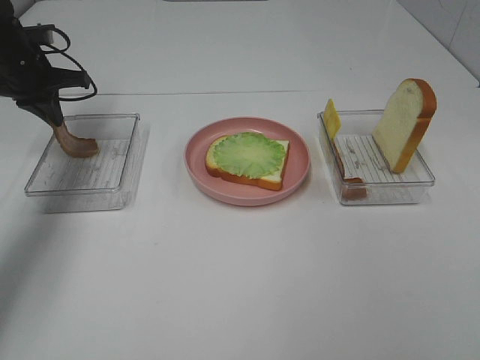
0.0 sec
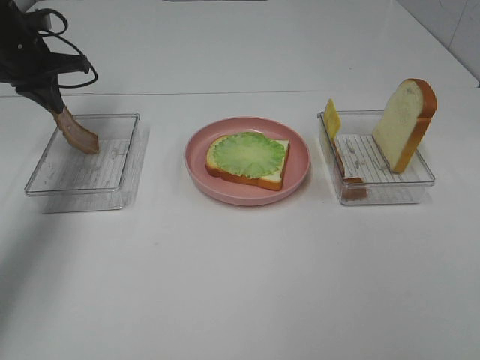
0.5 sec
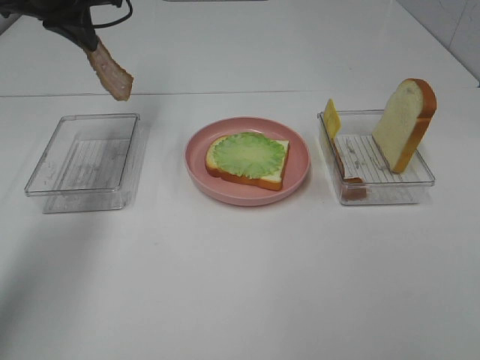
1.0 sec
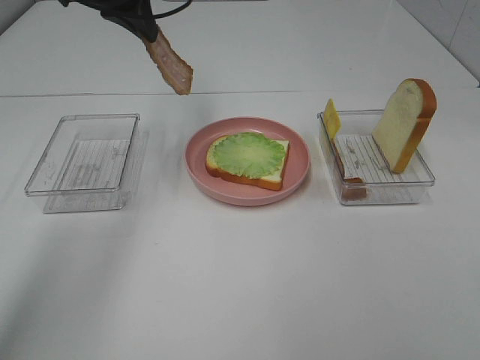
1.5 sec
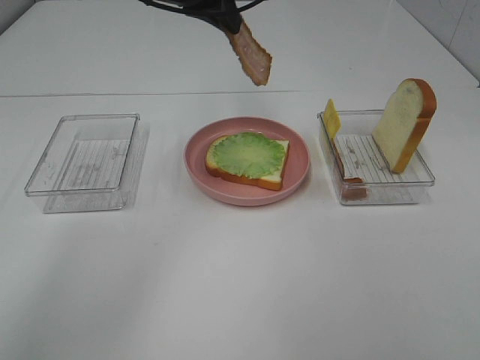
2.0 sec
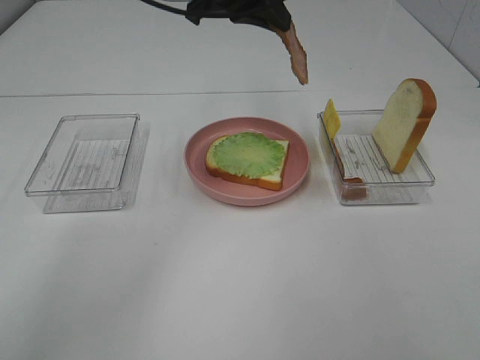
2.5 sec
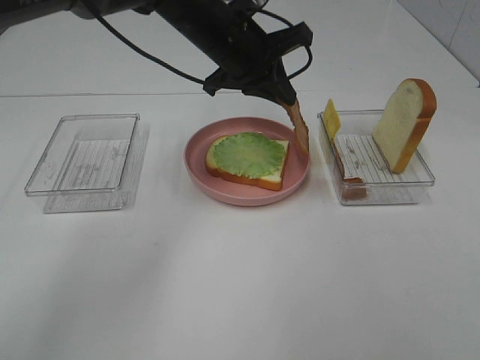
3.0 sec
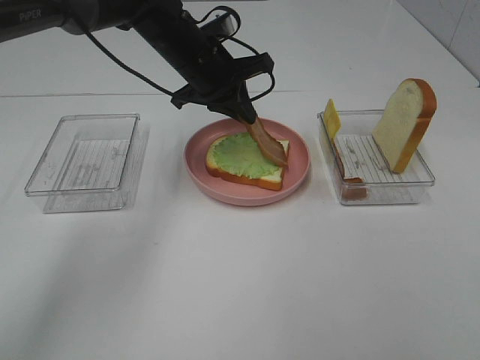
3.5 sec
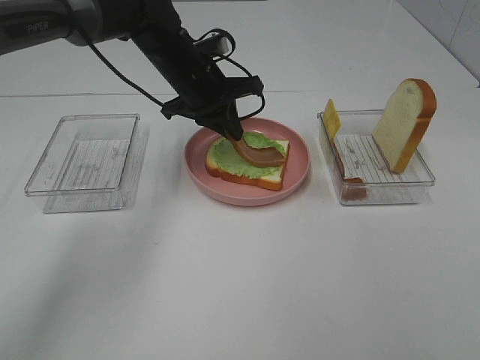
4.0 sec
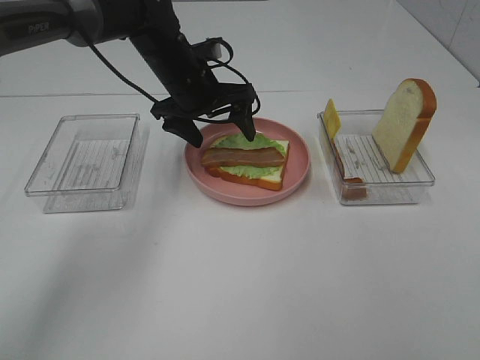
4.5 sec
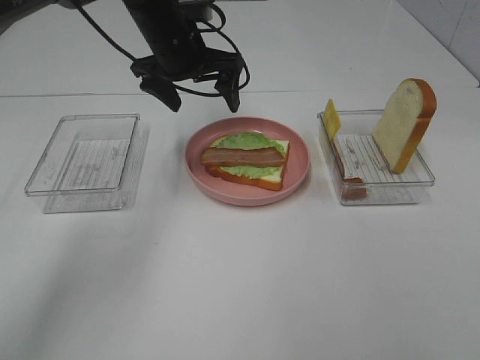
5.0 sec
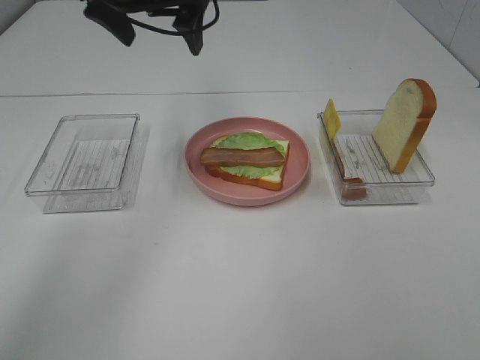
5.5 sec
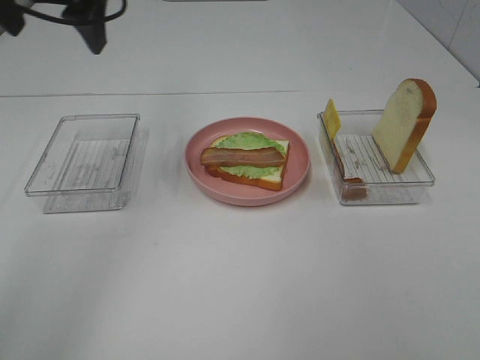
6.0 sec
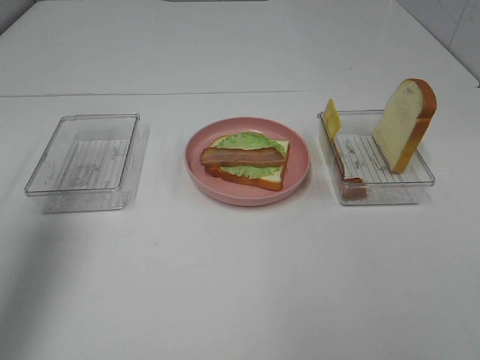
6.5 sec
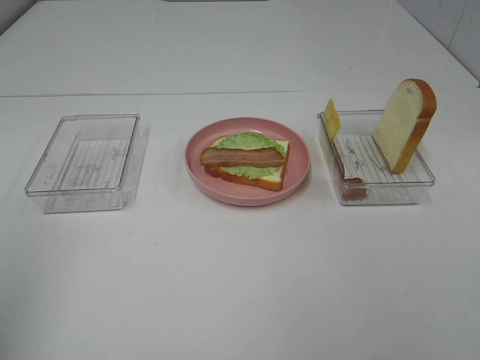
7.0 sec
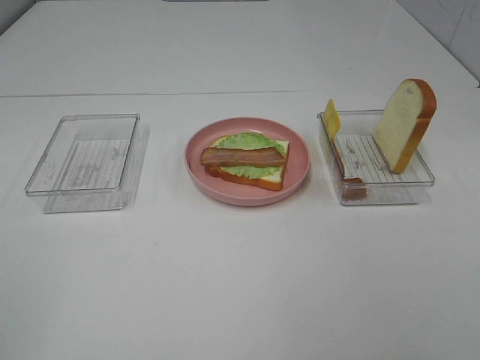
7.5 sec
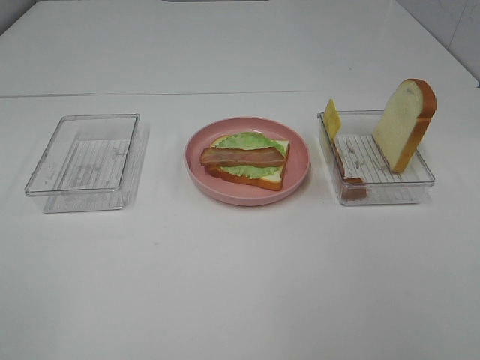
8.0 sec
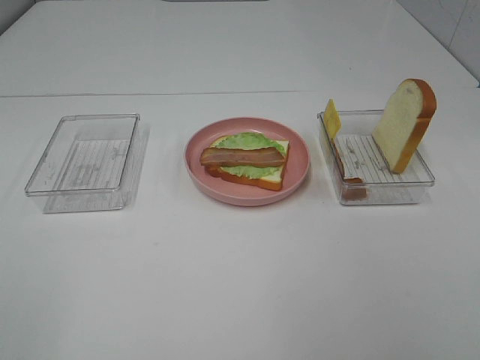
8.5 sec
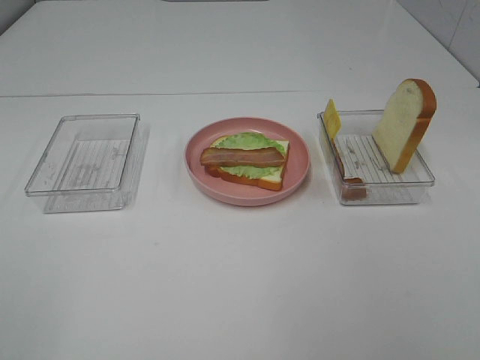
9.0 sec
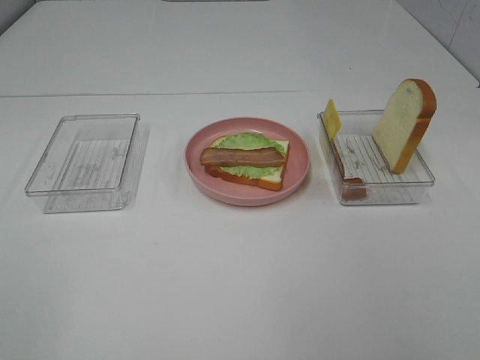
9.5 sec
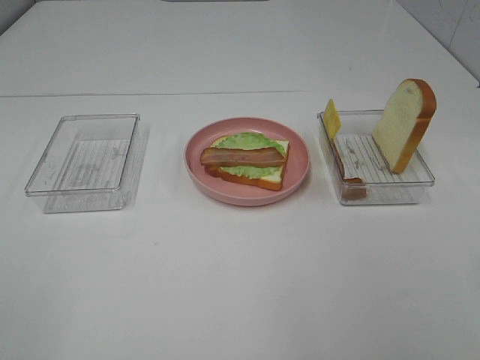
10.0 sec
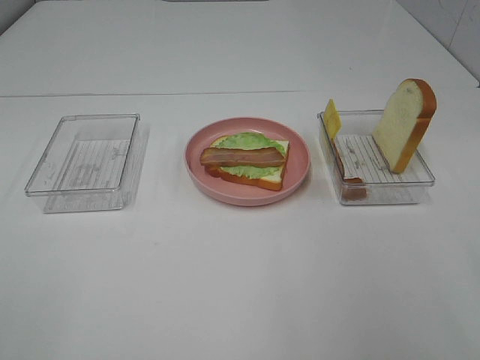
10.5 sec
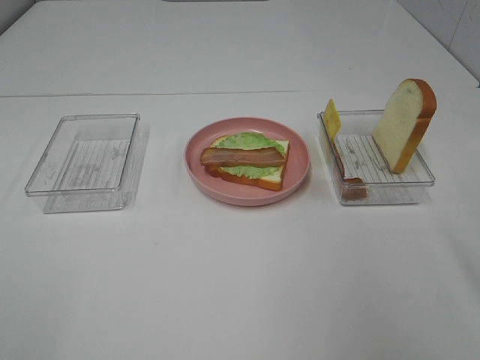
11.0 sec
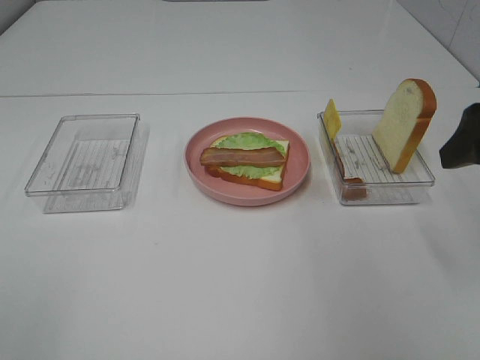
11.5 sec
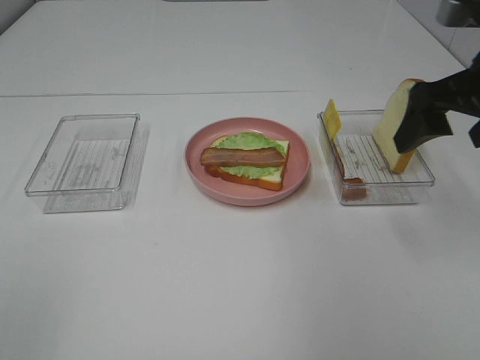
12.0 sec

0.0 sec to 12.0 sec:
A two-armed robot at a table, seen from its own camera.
Task of the whole recording: Make sandwiches.
Step, 0.5 sec to 4.5 sec: Left hand:place bacon on lettuce slice.
0.0 sec to 2.0 sec: The left gripper travels to the right and upward by some 30 cm.
2.0 sec to 4.0 sec: The left gripper moves downward, some 15 cm.
4.0 sec to 6.0 sec: The left gripper travels upward, to the left and backward by roughly 25 cm, and opens its fingers.
6.0 sec to 8.0 sec: The left gripper is displaced backward by some 40 cm.
10.0 sec to 12.0 sec: The right gripper goes approximately 30 cm forward.

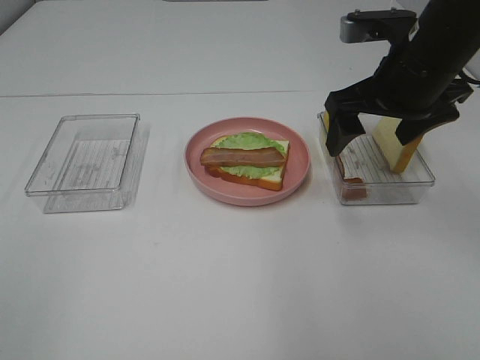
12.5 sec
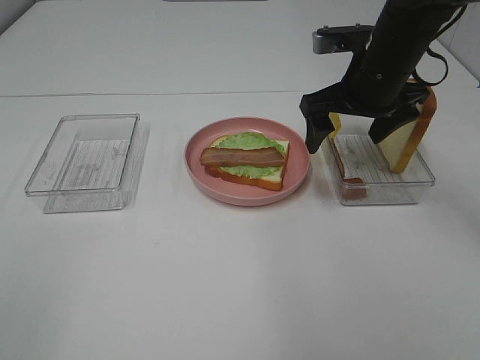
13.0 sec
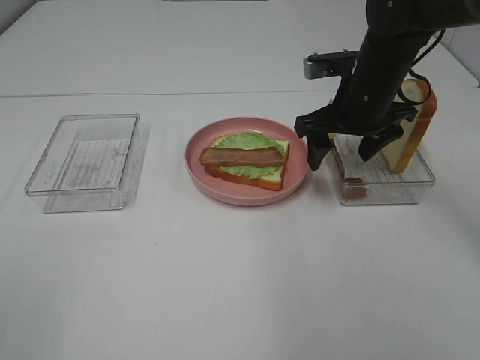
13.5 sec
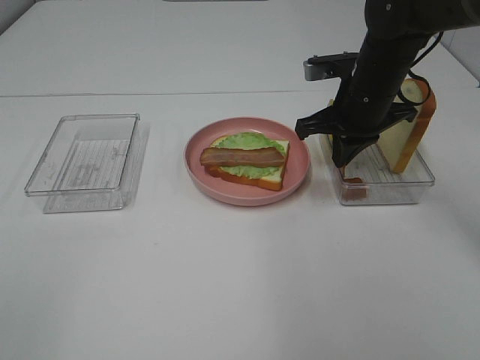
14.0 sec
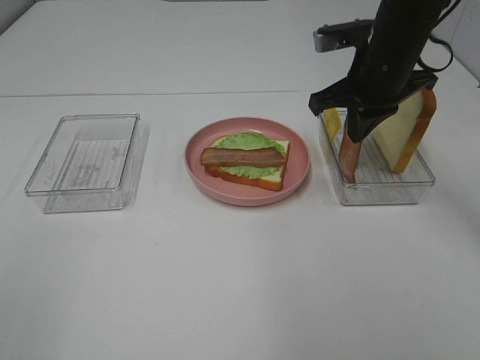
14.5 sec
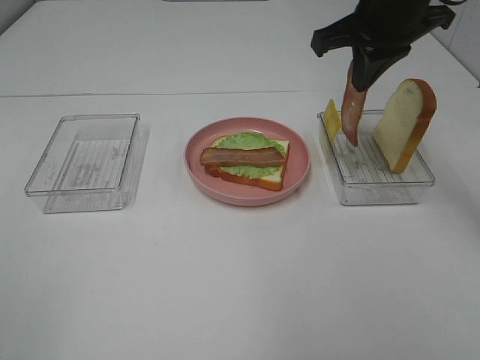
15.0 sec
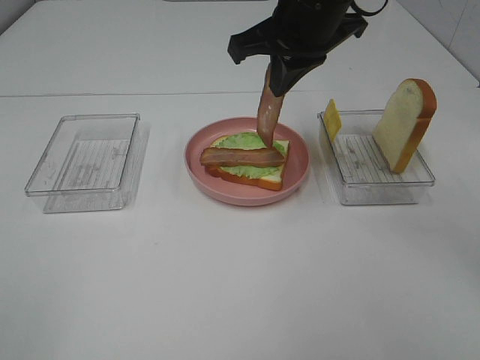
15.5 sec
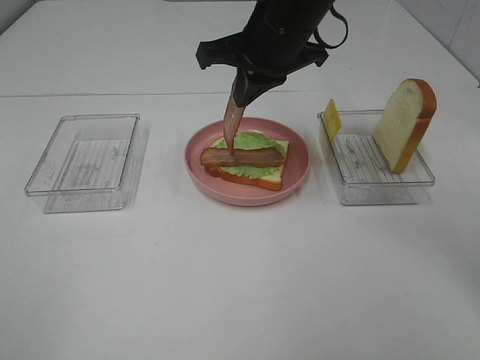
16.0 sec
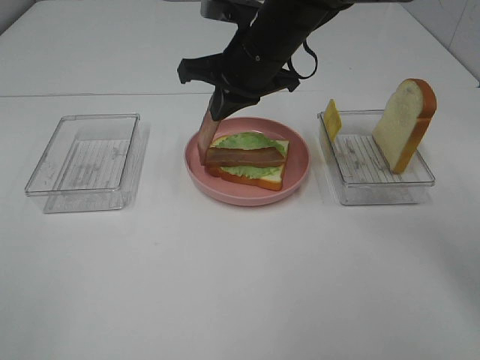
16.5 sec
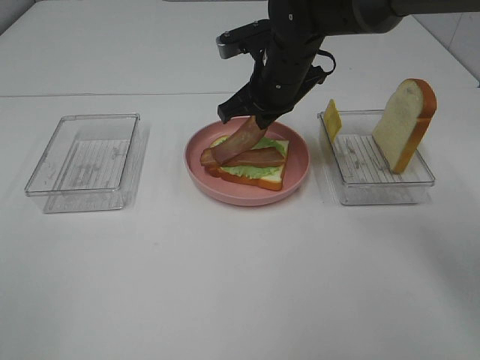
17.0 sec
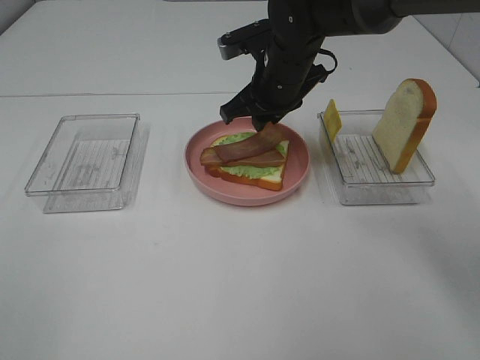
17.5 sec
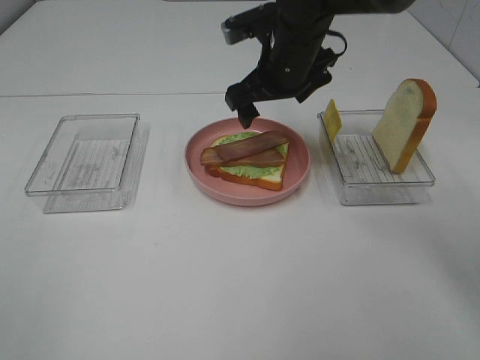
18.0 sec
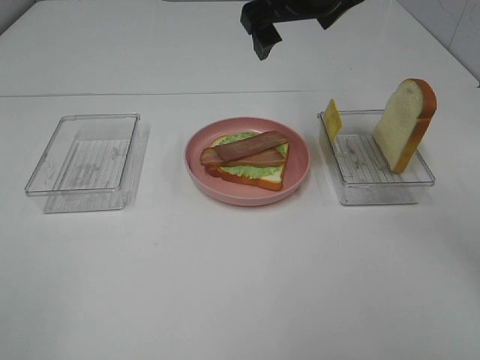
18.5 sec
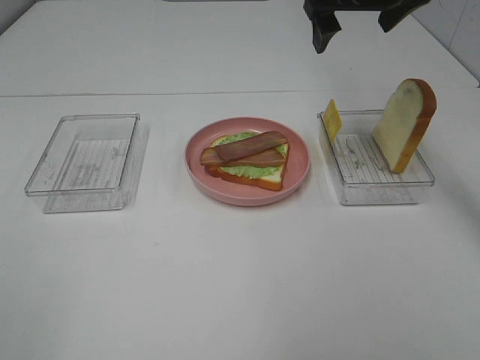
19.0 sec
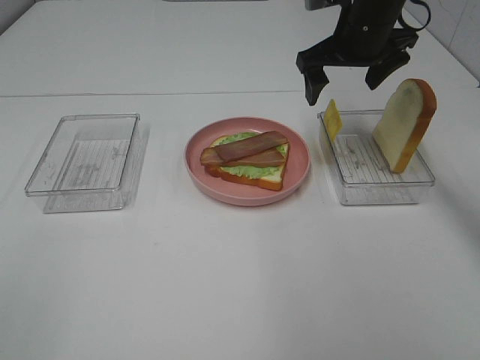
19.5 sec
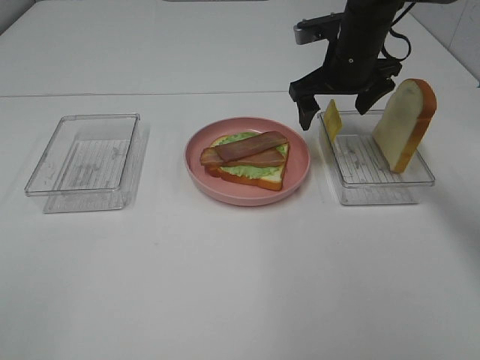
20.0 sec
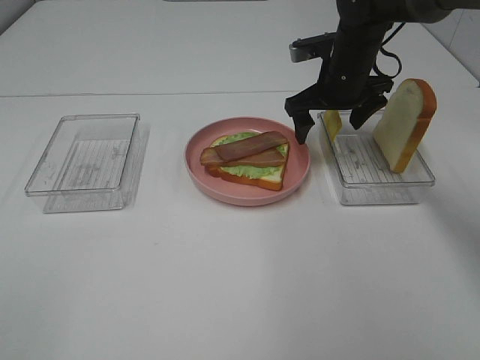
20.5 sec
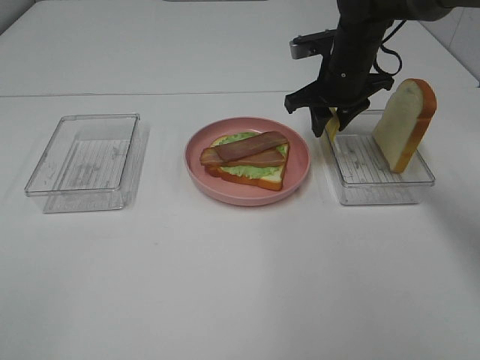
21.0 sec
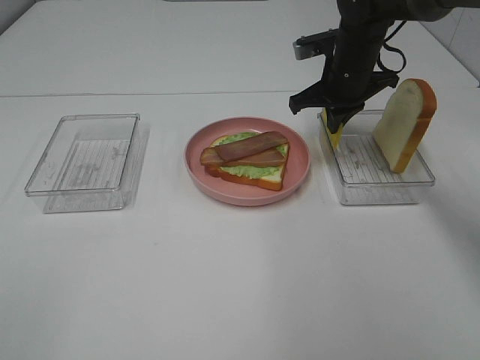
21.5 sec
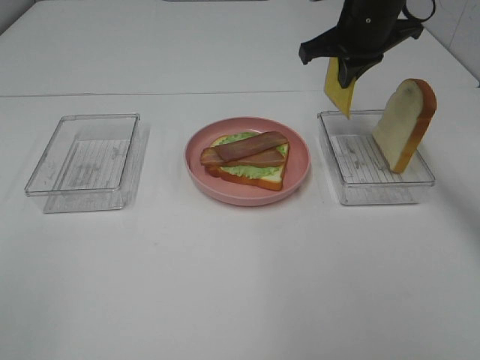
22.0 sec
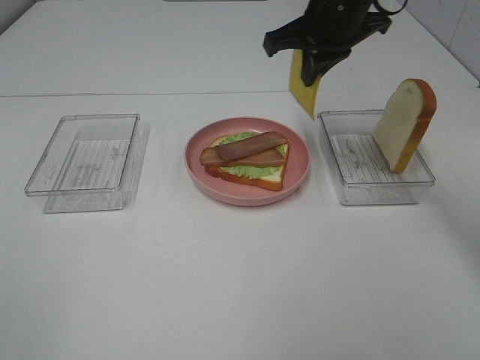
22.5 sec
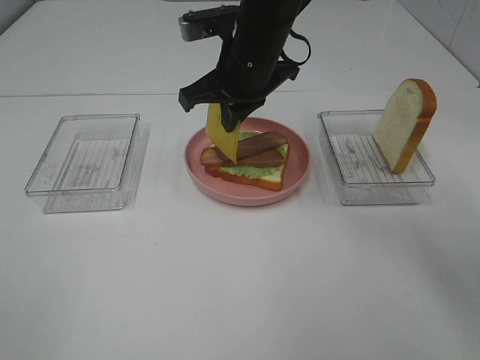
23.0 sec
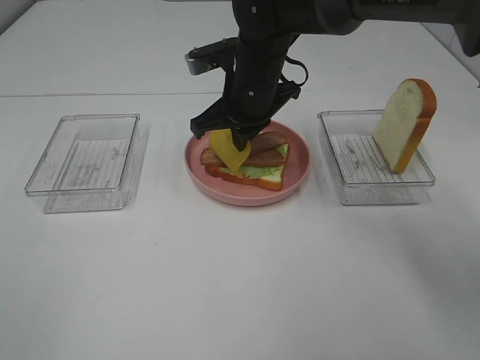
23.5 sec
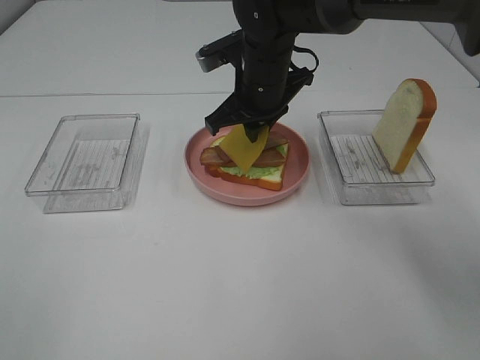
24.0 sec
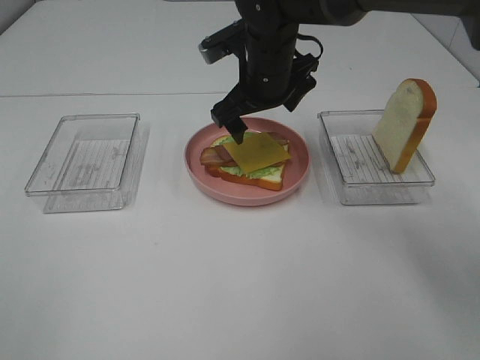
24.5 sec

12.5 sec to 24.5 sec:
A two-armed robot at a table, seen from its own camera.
Task of the whole recording: Make sandwiches.
Step, 14.5 sec to 17.5 sec: Right hand:place bacon on bacon.
Step, 18.0 sec to 21.5 sec: Right hand:grab the cheese slice.
Step, 22.0 sec to 24.0 sec: Right hand:place the cheese slice on top of the bacon.
12.5 sec to 14.5 sec: The right gripper shifts approximately 5 cm forward, and closes up.
14.5 sec to 16.5 sec: The right gripper moves to the left, approximately 15 cm.
16.5 sec to 18.5 sec: The right gripper travels upward by approximately 10 cm, and opens its fingers.
18.5 sec to 20.5 sec: The right gripper moves downward, to the right and forward, roughly 15 cm.
20.5 sec to 22.5 sec: The right gripper is displaced upward by roughly 10 cm, and closes its fingers.
22.5 sec to 24.5 sec: The right gripper heads downward and to the left, covering roughly 10 cm, and opens.

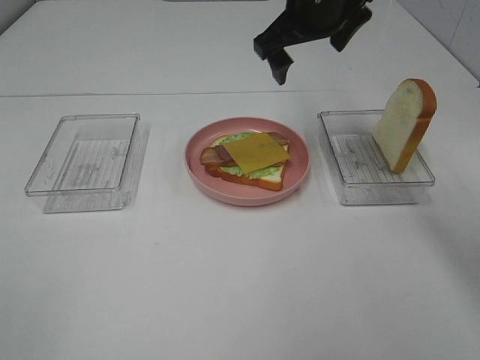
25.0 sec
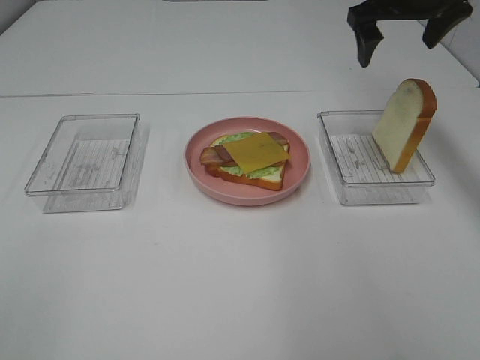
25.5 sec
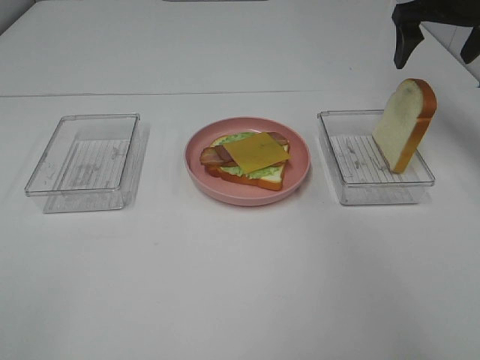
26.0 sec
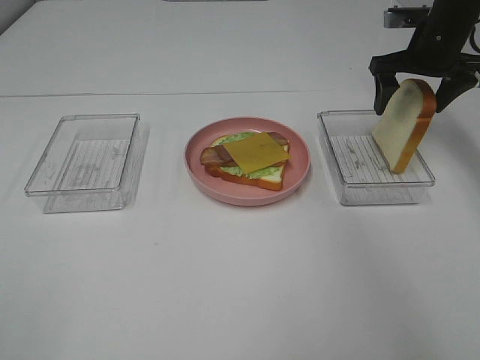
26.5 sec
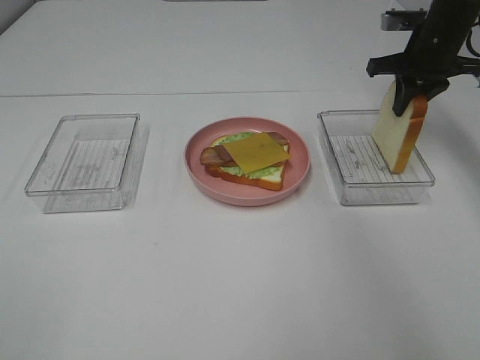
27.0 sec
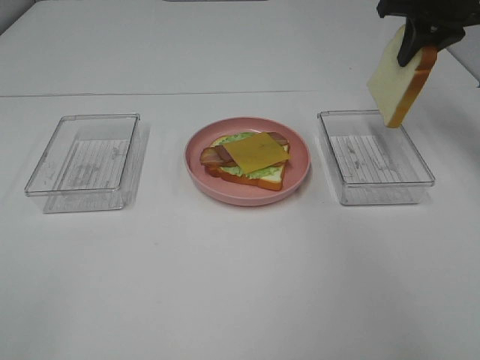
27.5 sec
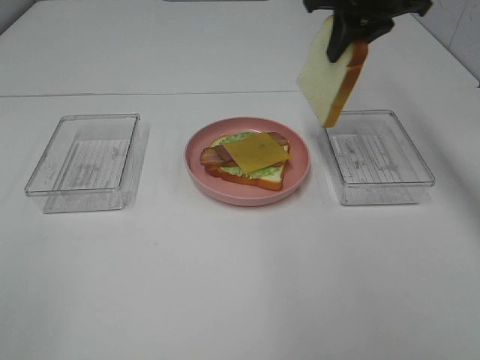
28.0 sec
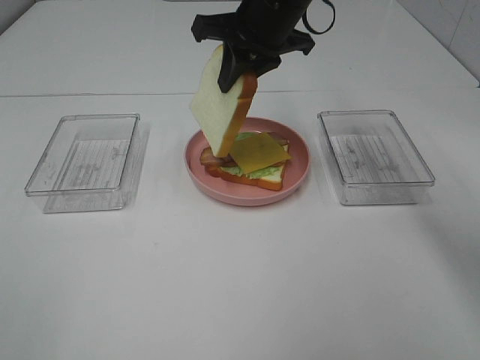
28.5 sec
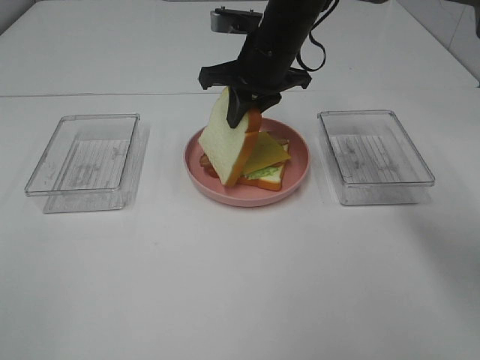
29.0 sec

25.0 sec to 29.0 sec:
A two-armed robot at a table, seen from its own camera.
Task of the whole recording: Make sandwiches.
Step, 25.0 sec to 27.0 sec: Right hand:grab the bread slice.
25.0 sec to 27.0 sec: The right gripper heads to the right and downward, covering approximately 20 cm, and closes up.
27.0 sec to 29.0 sec: The right gripper heads to the left, covering about 25 cm.
